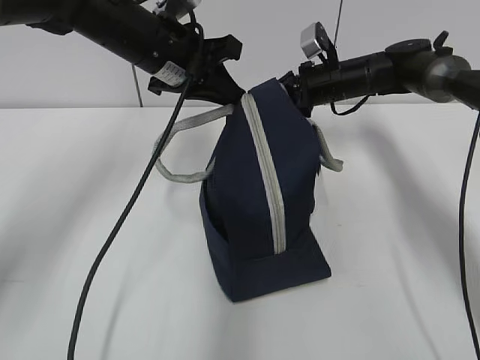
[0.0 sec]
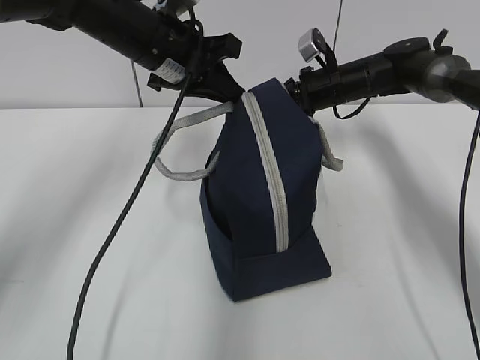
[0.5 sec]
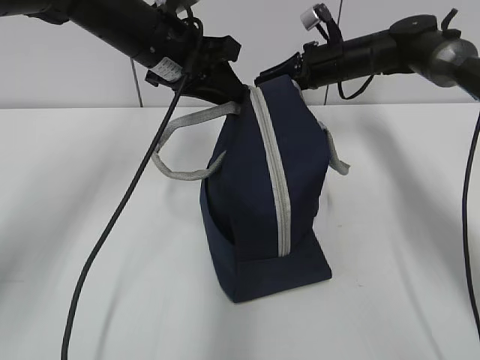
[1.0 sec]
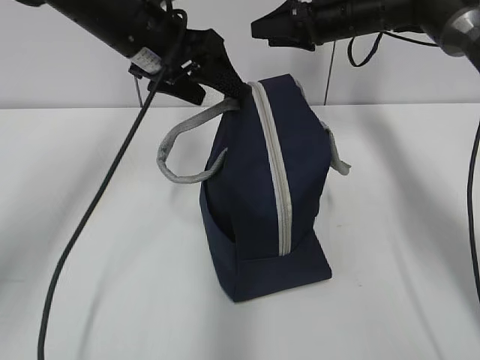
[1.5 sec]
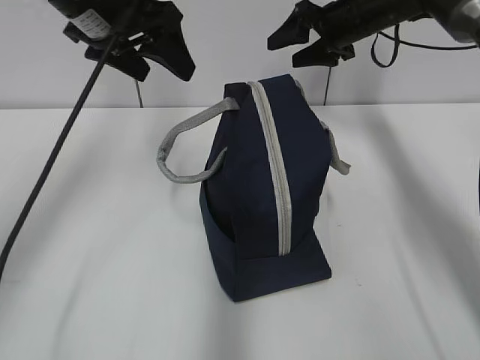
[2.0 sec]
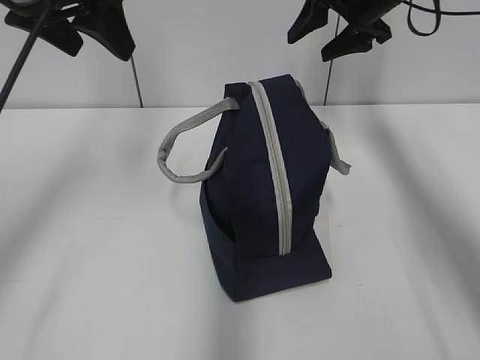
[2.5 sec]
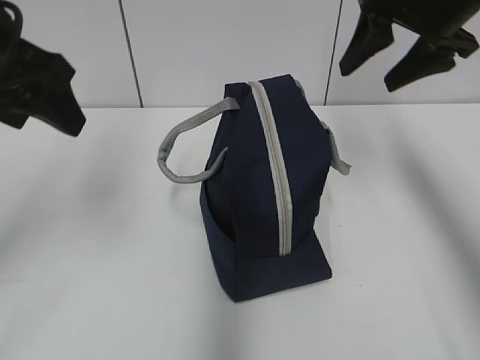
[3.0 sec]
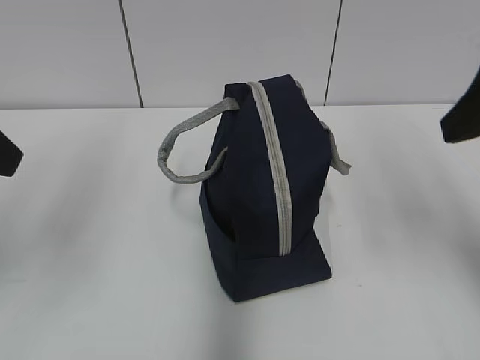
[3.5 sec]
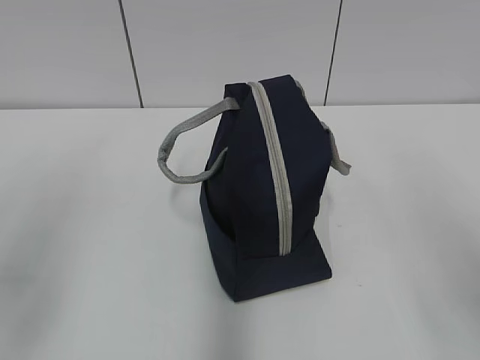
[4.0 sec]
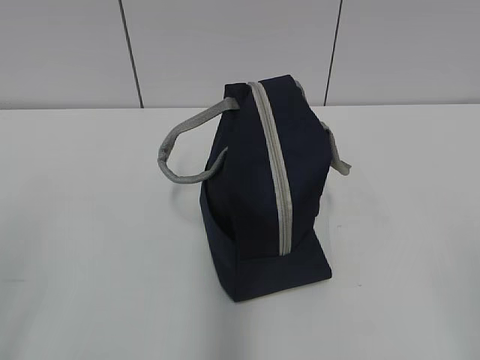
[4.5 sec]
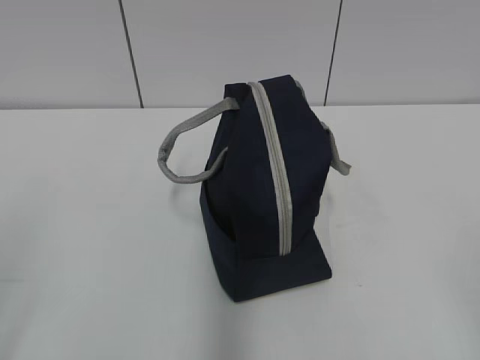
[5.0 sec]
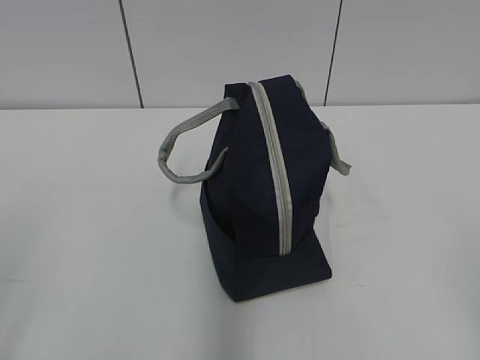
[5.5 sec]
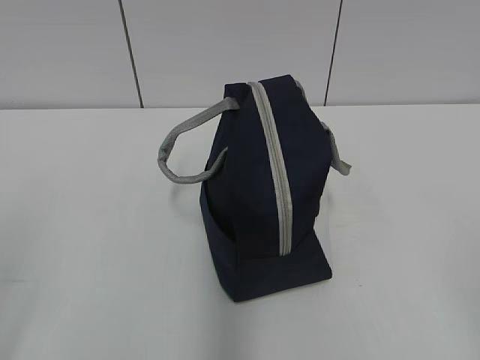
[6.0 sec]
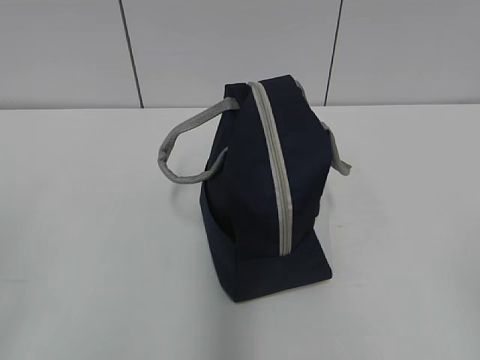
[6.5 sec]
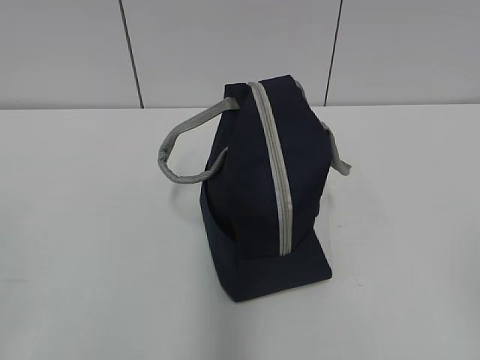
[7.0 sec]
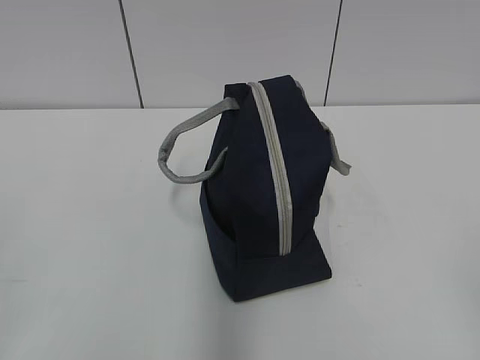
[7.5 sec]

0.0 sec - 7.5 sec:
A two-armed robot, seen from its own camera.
0.0 sec - 2.0 sec: The left gripper travels upward and to the left by about 10 cm, and opens. The right gripper is displaced upward by roughly 10 cm, and opens up.
2.0 sec - 4.0 sec: The left gripper shifts about 30 cm backward and to the left, while the right gripper is displaced backward by some 40 cm.
